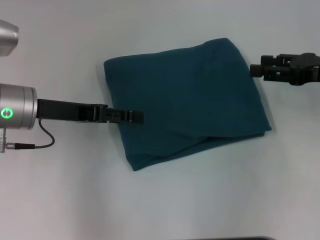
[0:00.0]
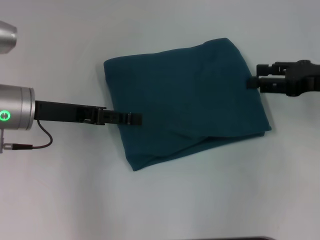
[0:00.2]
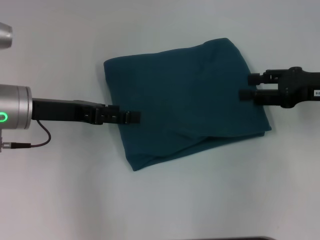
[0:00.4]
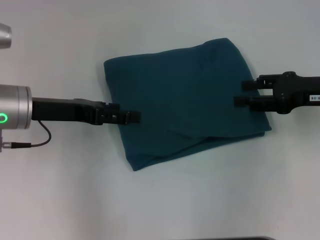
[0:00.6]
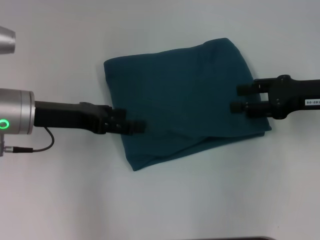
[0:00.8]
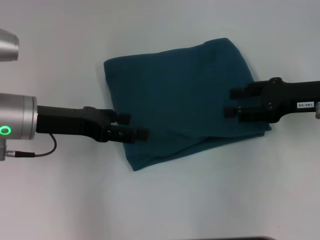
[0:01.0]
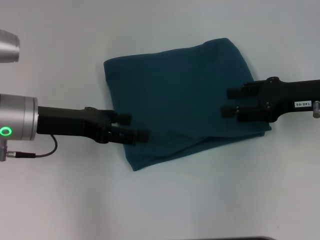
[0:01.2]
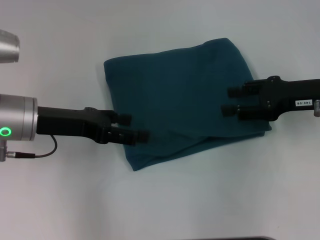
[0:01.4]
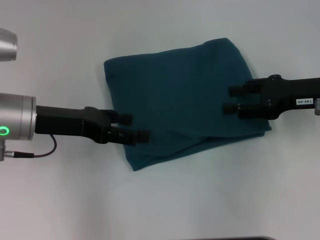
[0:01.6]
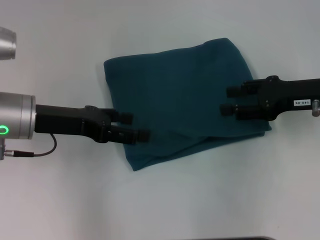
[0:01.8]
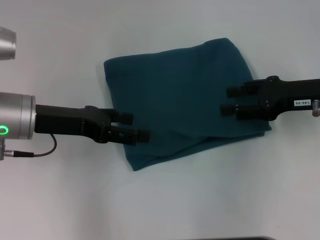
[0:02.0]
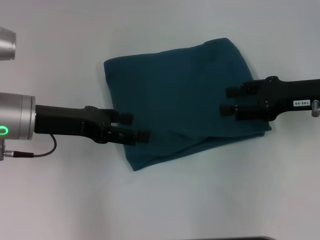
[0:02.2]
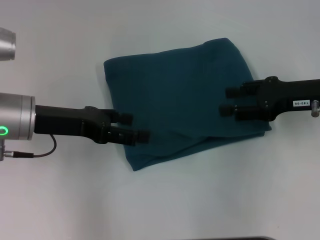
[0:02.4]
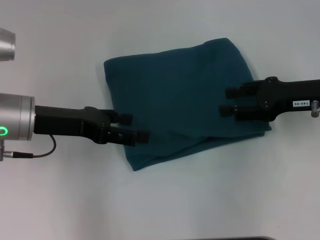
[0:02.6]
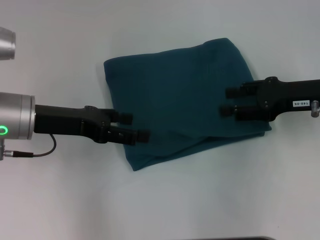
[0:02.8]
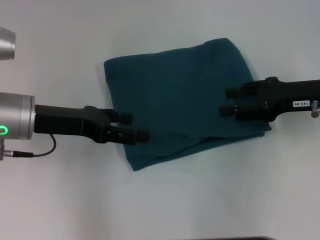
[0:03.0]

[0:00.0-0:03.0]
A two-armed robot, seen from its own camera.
0:01.6 to 0:03.0: Both grippers stay about where they are.

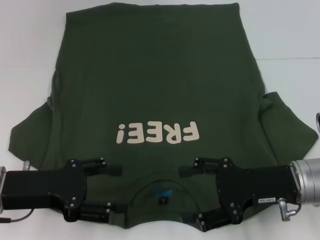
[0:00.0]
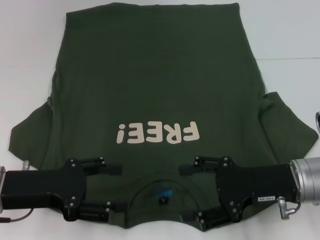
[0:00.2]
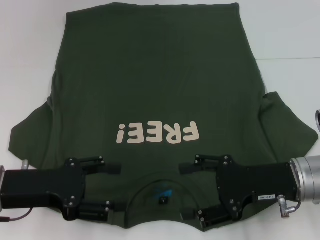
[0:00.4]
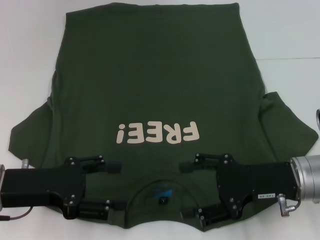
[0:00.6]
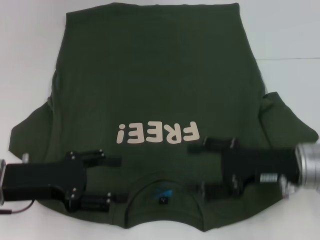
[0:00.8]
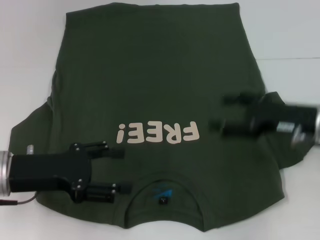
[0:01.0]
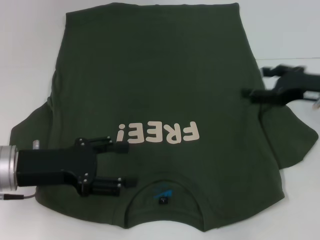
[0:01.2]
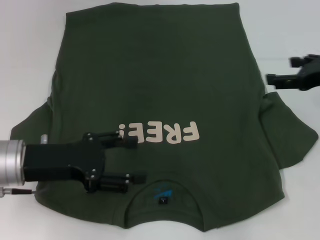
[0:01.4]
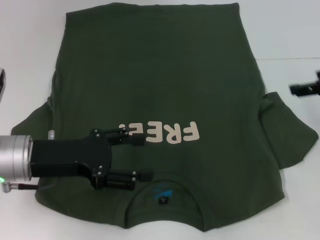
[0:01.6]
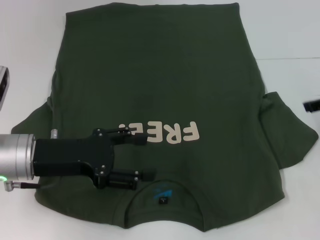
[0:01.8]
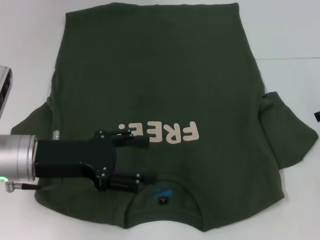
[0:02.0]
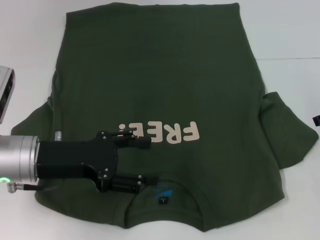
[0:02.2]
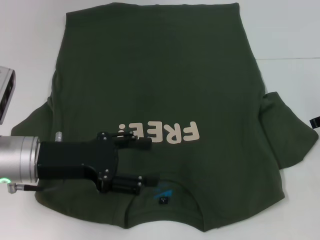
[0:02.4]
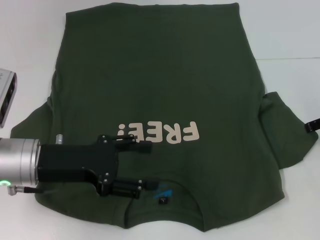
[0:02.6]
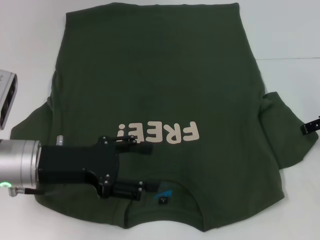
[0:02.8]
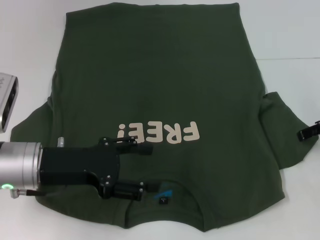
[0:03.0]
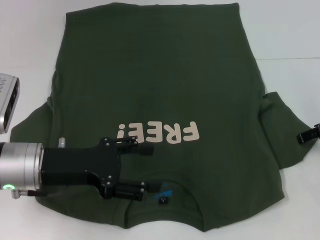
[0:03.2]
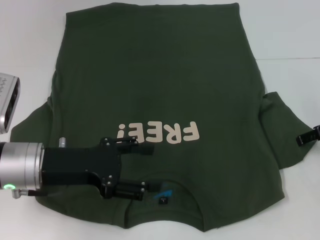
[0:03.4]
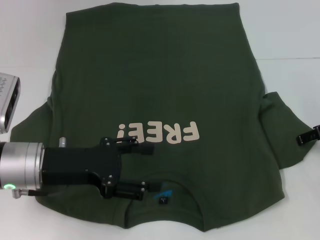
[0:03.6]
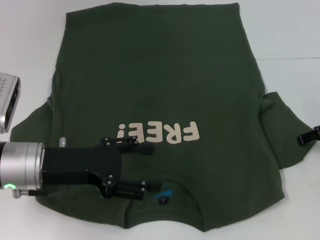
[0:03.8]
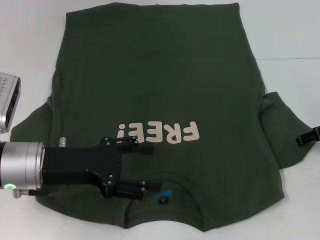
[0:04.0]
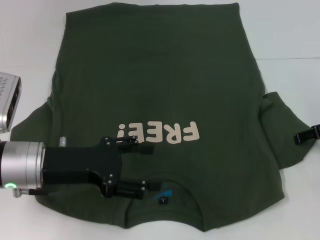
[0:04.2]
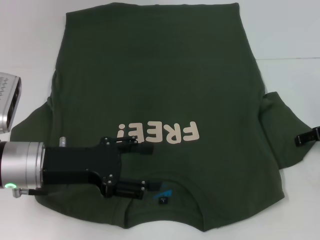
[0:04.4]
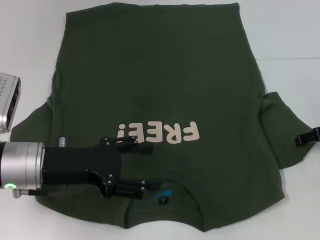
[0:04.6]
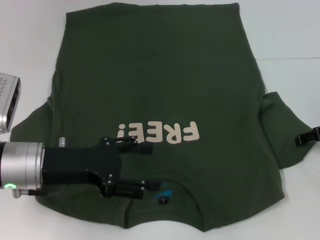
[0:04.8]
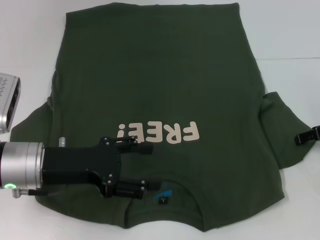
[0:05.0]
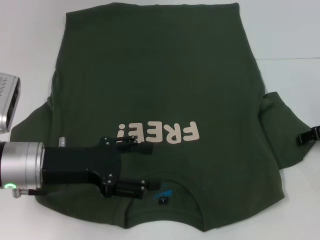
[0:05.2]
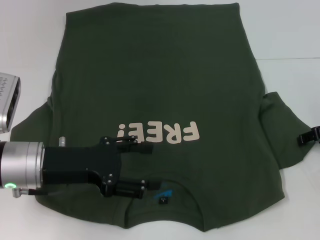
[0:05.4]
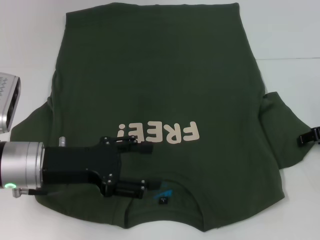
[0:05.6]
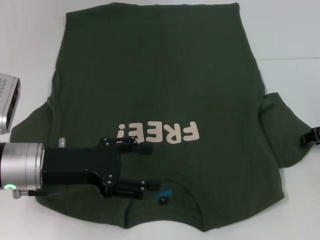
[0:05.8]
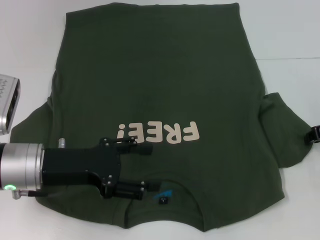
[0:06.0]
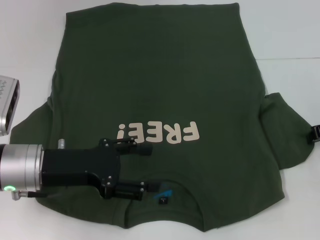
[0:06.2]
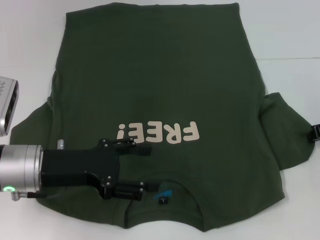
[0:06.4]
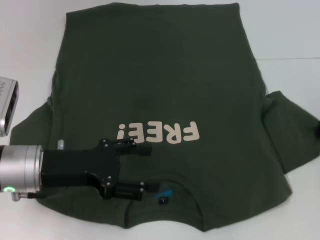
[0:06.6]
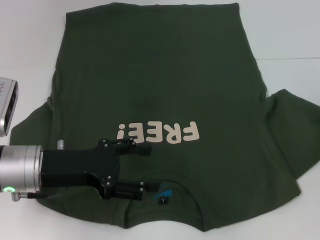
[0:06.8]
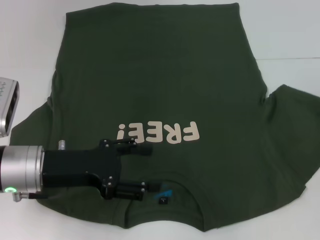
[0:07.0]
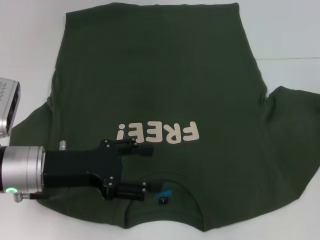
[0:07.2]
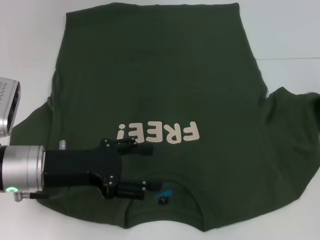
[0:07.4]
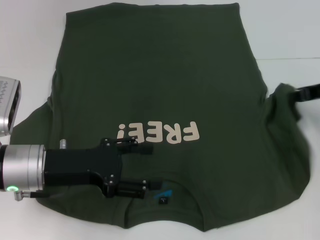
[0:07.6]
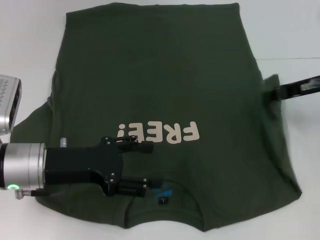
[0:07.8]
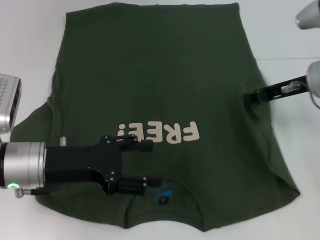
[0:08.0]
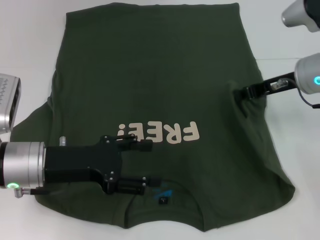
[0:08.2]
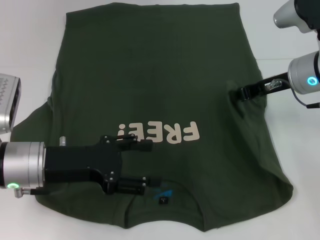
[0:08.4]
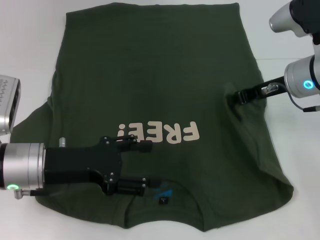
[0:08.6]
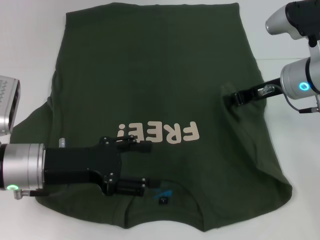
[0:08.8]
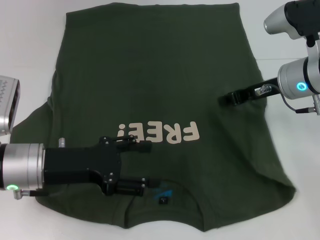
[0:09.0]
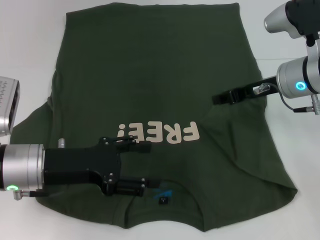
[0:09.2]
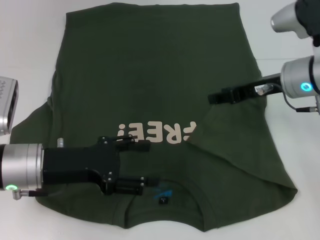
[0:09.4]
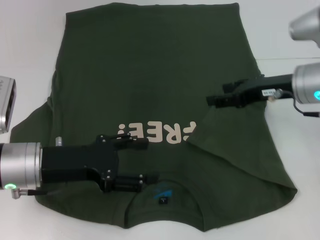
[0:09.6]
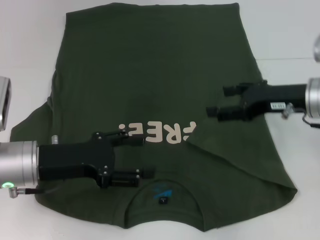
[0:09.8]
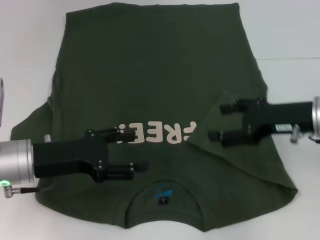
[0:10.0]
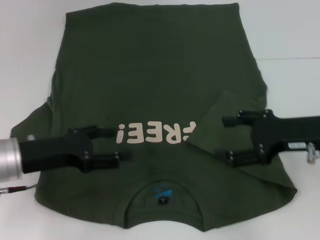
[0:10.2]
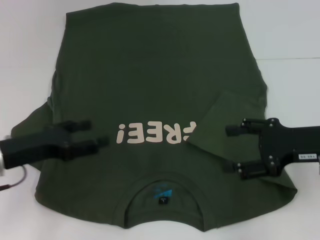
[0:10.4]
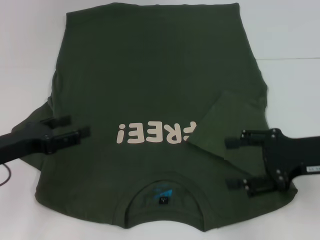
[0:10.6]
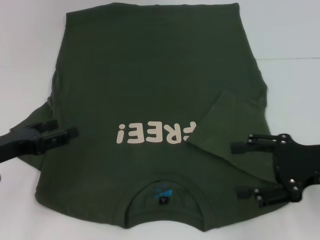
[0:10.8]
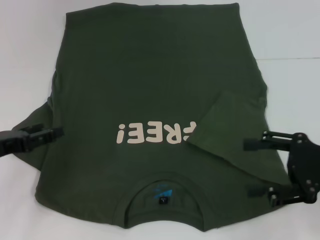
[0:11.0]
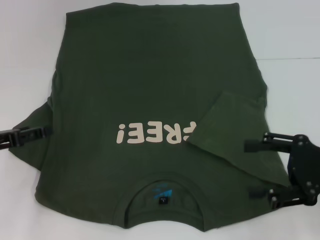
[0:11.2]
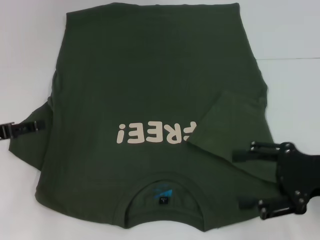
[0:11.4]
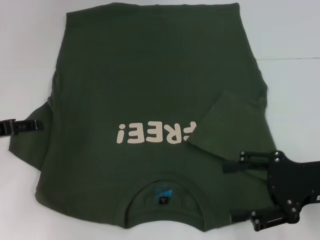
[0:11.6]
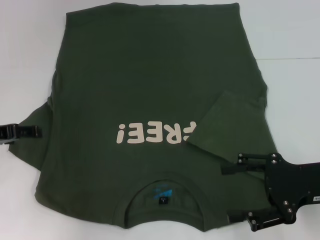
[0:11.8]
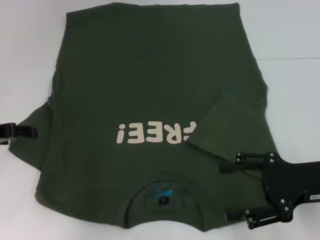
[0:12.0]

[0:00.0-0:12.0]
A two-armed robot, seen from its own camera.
Step, 0:00.0 to 0:09.6: Fold the bottom right sleeve with your right hand.
0:00.0 to 0:01.6: The right gripper goes about 15 cm to the right, upward and forward.
0:03.0 to 0:04.4: The grippers make only small movements.
0:06.0 to 0:07.6: The right gripper changes place by roughly 5 cm, and closes up.
0:07.6 to 0:09.0: The right gripper goes some 10 cm to the left.
0:09.0 to 0:10.4: The left gripper is displaced to the left by some 5 cm. Meanwhile the right gripper goes about 10 cm backward and to the right, and opens up.
0:10.4 to 0:12.0: The left gripper ends up about 5 cm from where it was.

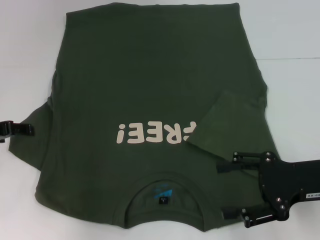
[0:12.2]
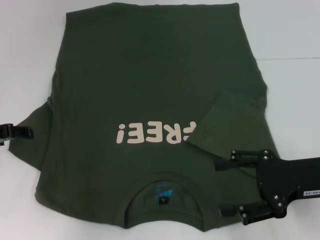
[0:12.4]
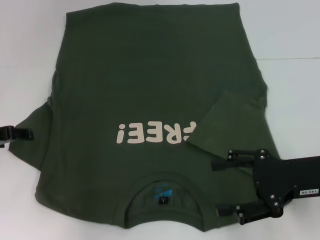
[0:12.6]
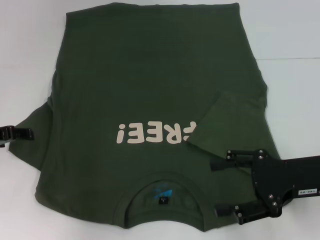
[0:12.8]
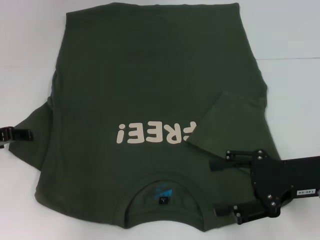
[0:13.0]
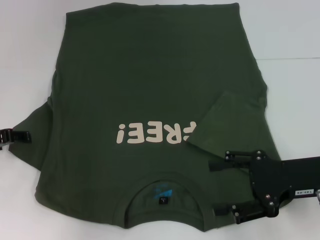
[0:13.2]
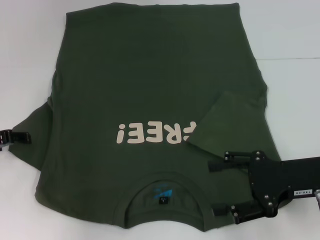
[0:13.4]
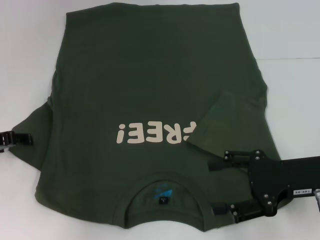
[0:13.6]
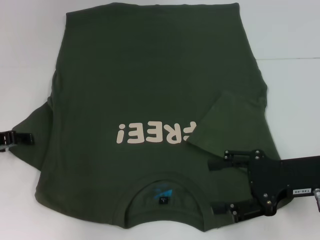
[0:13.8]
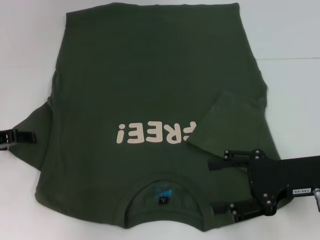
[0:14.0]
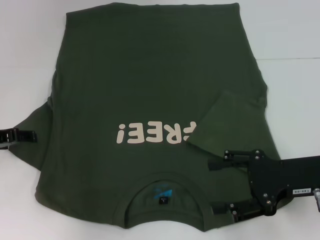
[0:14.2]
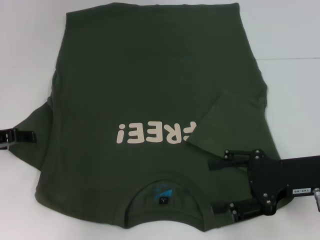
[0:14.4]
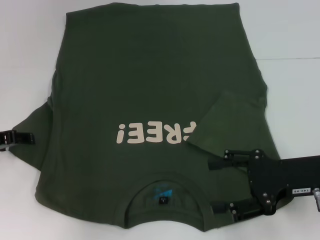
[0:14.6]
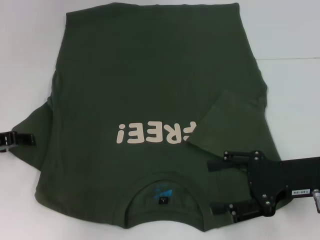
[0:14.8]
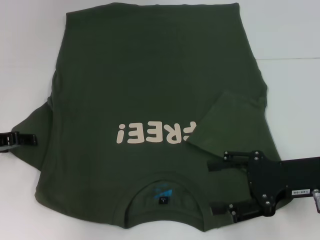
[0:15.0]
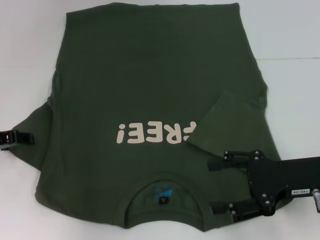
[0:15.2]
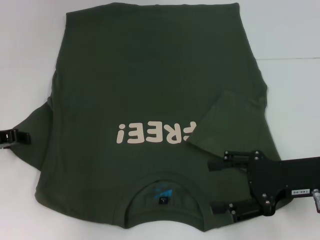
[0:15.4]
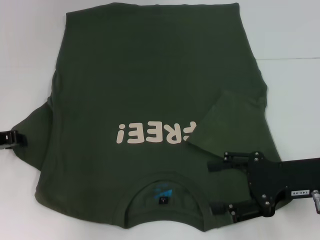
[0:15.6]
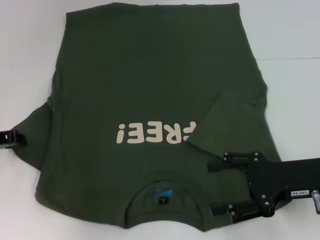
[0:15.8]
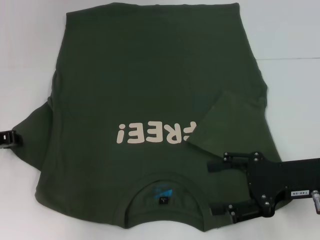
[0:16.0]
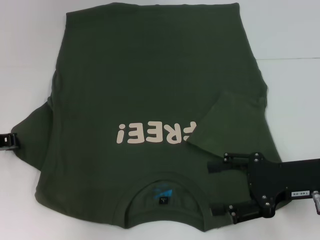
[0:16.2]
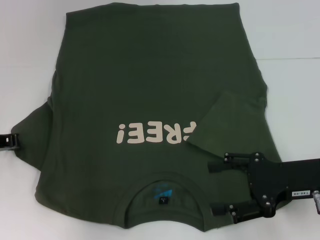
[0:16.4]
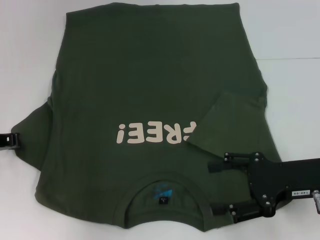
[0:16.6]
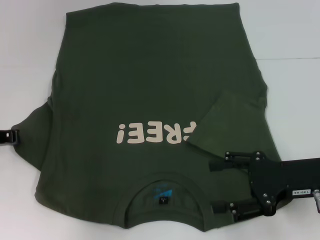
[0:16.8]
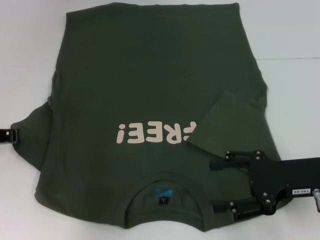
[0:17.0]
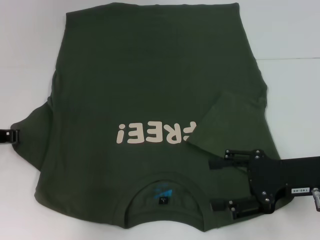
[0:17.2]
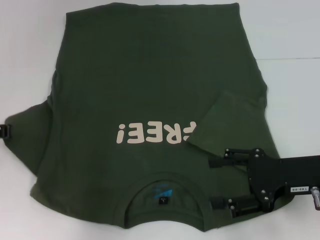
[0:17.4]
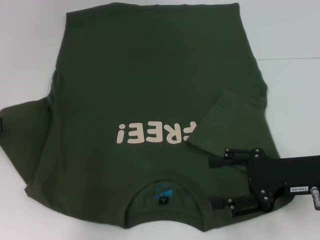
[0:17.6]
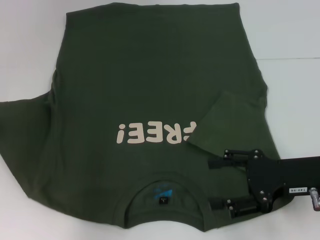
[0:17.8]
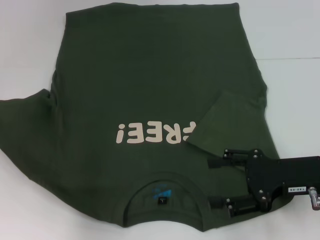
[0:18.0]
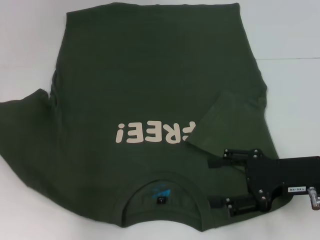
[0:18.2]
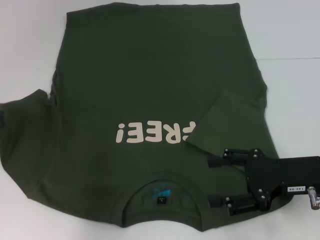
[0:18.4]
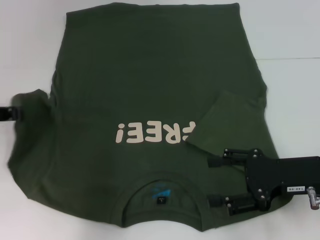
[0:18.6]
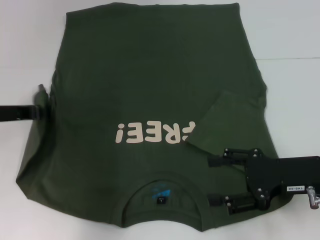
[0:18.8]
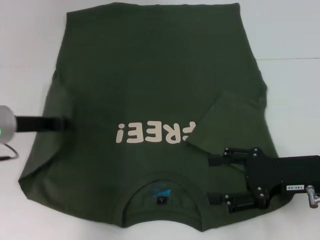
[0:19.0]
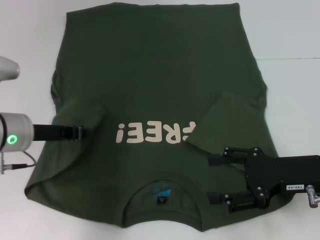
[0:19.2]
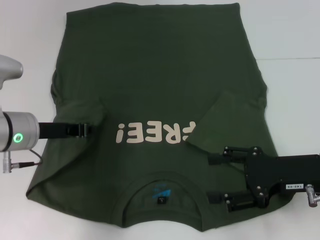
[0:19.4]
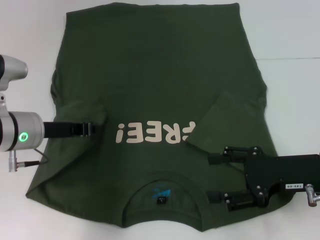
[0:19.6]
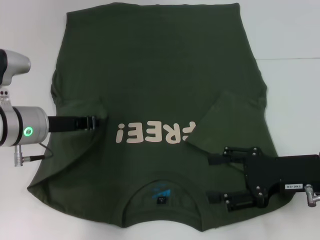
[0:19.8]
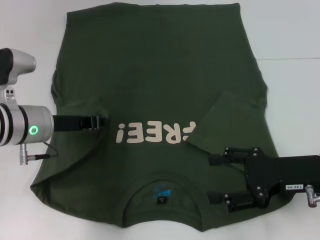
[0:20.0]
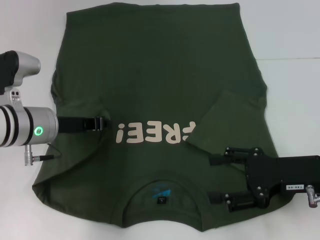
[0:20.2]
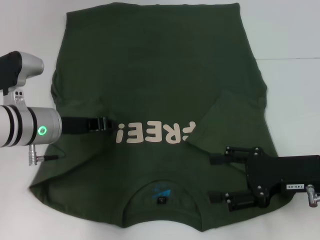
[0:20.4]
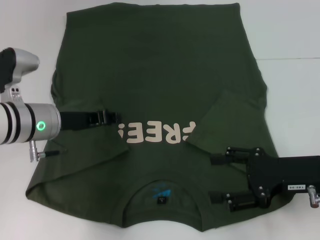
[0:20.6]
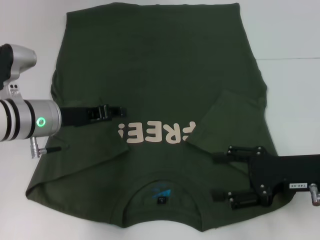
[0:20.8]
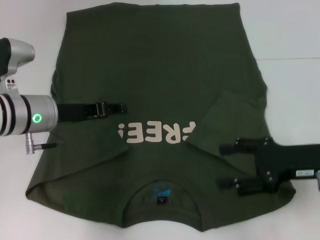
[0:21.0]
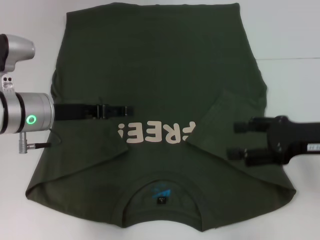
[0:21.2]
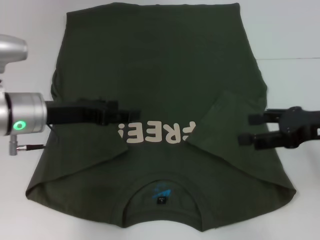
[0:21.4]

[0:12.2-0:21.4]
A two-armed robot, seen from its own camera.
Step, 0:12.2 to 0:20.8: Fold the bottom left sleeve with your left hand.
0:12.2 to 0:13.8: The grippers make only small movements.
0:13.8 to 0:15.2: Neither gripper changes place.
0:16.8 to 0:18.4: The grippers make only small movements.
0:18.4 to 0:19.8: The left gripper is displaced to the right by about 10 cm.
0:19.8 to 0:21.4: The left gripper opens, while the right gripper is displaced upward by approximately 5 cm.
